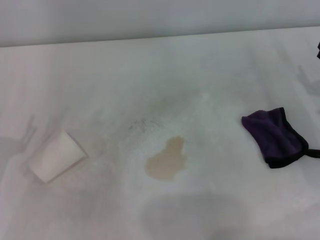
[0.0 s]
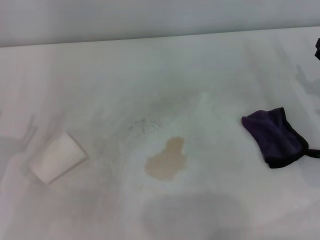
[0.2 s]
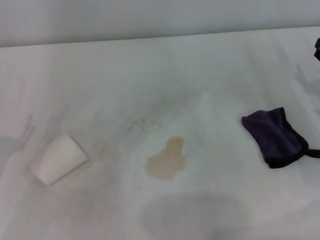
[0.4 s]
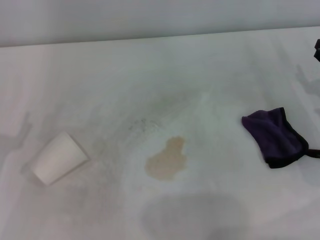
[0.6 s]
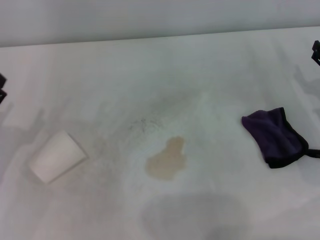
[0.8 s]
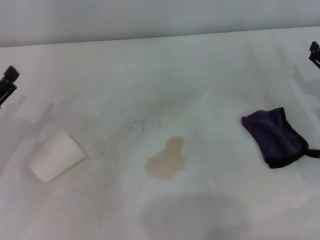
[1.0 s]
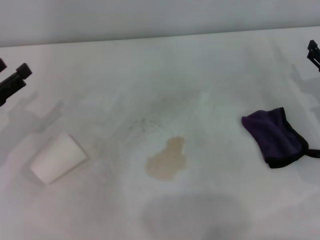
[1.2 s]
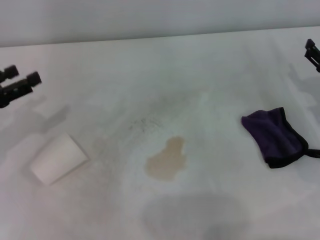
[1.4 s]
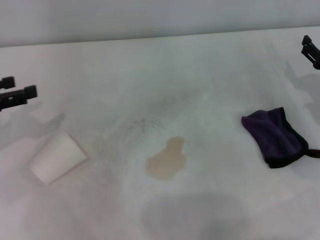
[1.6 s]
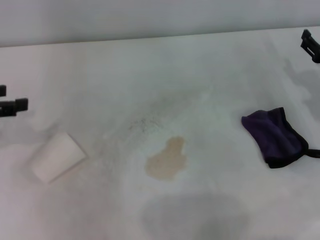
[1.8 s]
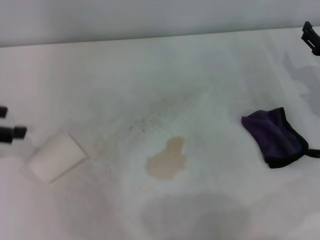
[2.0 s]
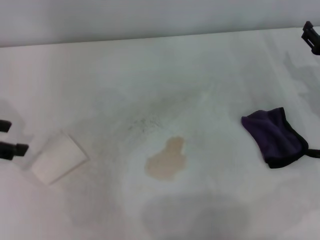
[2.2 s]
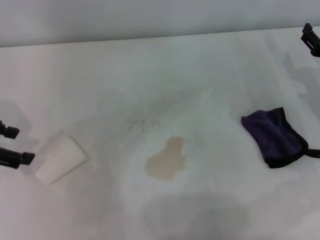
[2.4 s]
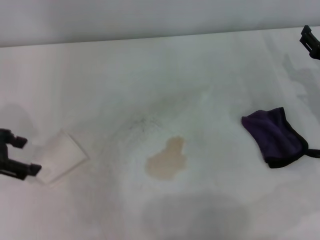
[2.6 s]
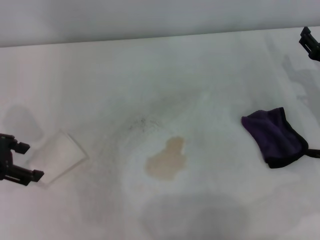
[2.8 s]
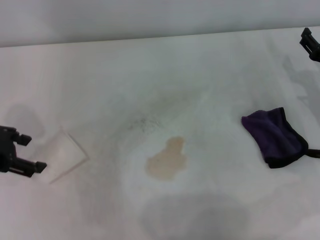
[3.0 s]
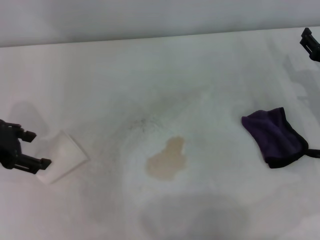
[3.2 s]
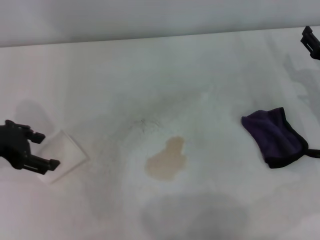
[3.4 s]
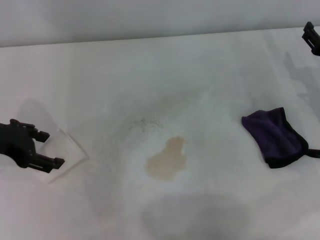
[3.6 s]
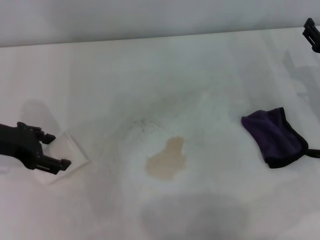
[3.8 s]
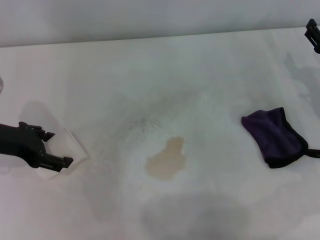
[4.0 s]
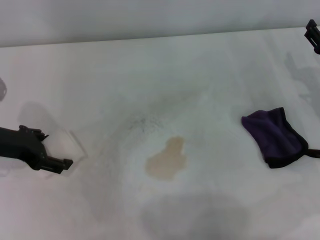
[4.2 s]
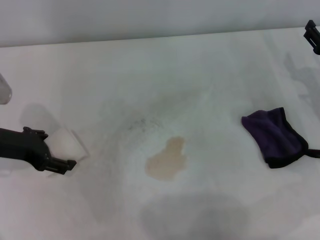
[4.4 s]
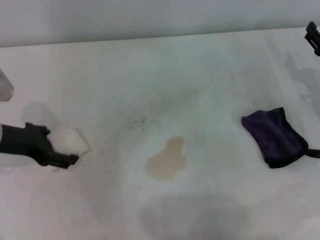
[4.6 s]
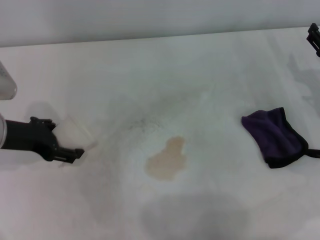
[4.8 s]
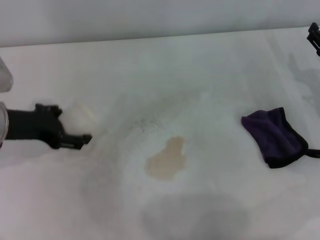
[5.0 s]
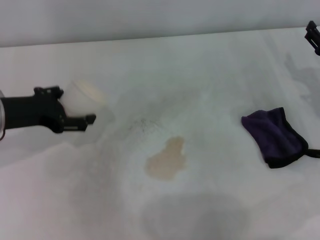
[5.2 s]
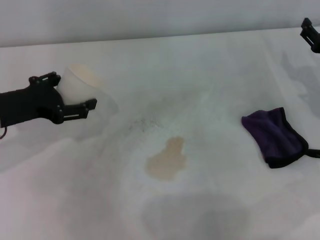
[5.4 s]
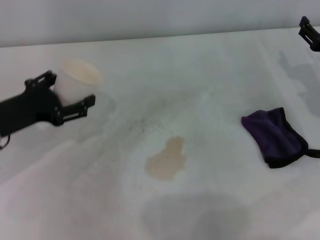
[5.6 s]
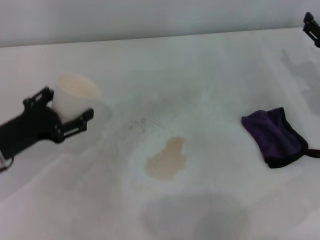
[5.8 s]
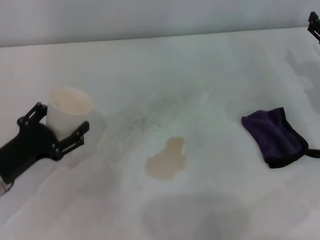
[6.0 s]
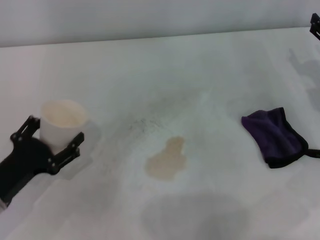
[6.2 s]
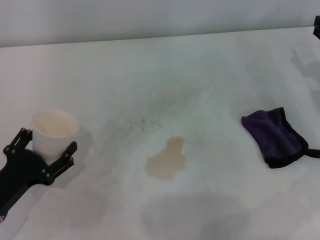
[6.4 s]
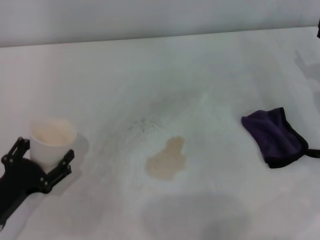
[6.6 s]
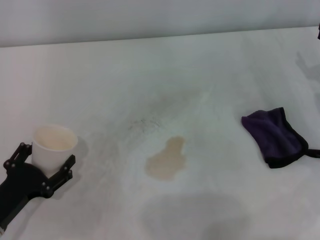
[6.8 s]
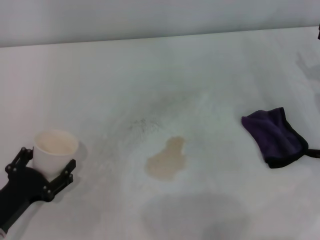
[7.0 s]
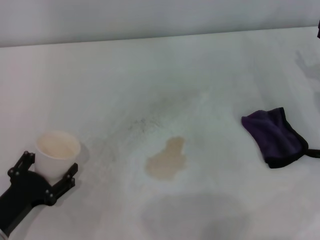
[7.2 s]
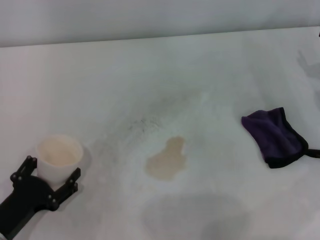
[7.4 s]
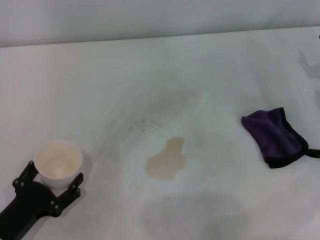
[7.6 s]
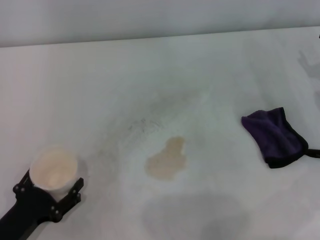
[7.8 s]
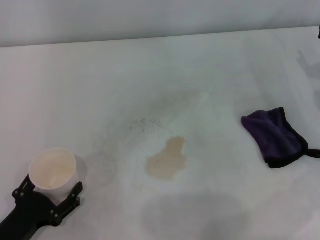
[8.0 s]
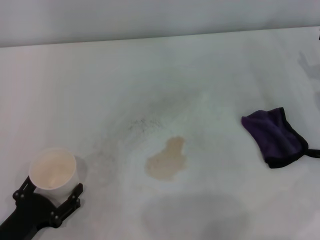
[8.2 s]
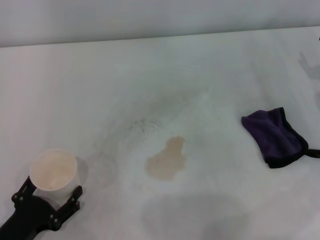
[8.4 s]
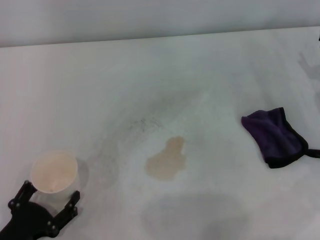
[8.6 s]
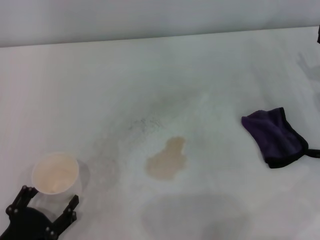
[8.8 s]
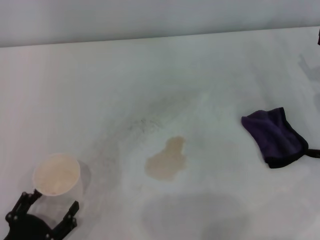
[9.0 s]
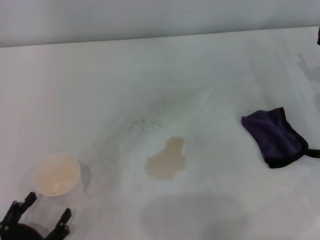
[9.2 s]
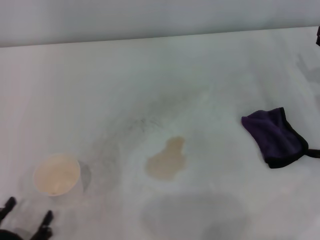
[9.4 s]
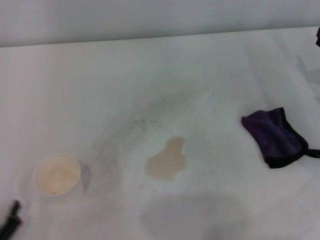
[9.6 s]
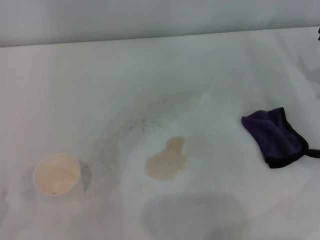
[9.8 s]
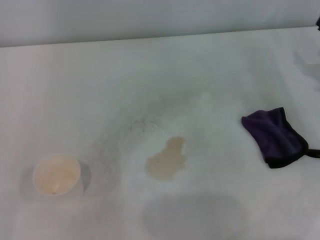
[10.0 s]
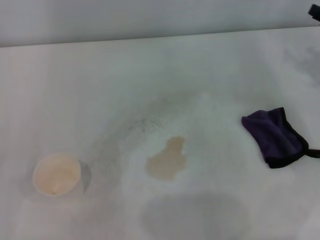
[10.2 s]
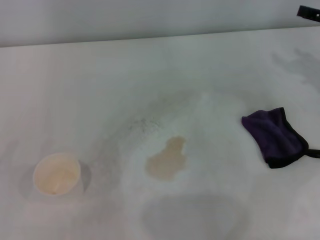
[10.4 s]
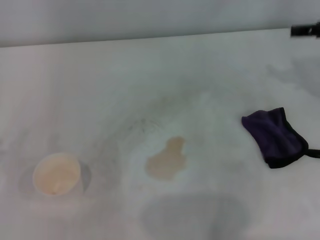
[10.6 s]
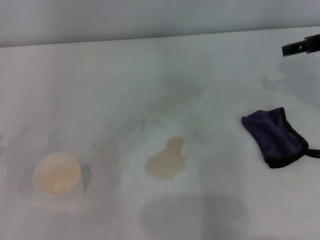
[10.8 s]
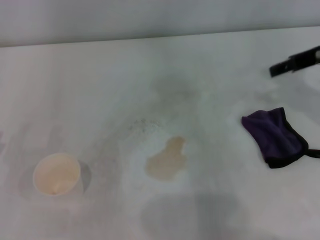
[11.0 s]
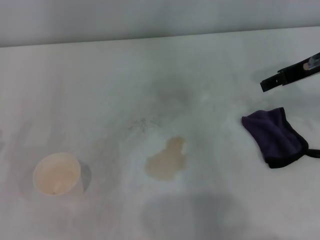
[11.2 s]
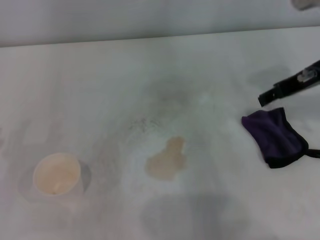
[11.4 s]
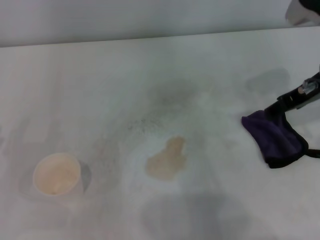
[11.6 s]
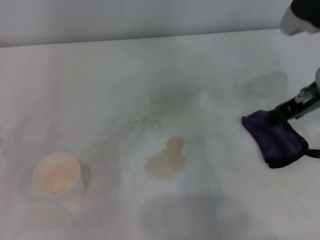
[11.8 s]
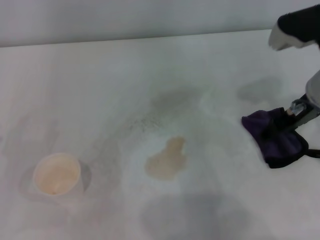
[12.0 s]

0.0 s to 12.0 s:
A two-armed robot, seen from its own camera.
Step, 0.0 to 4.2 s: Grasp the paper cup with the left gripper.
Step, 4.6 to 7.8 s: Stand the paper cup upright with the left gripper.
0.0 to 1.6 s: The left gripper shifts approximately 15 cm forward and upward.
3.0 to 4.4 s: The left gripper moves roughly 5 cm.
4.4 to 6.0 s: The left gripper shifts about 10 cm backward and downward.
6.0 to 7.6 s: The left gripper is displaced backward by some 10 cm.
7.6 to 9.0 s: The left gripper shifts approximately 5 cm backward.
9.0 to 10.4 s: The left gripper heads to the left, covering approximately 10 cm.
10.4 to 12.0 s: The right gripper travels to the left by some 15 cm.

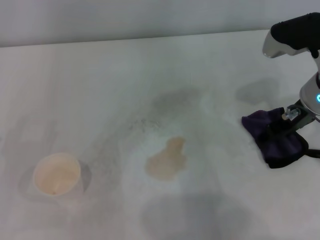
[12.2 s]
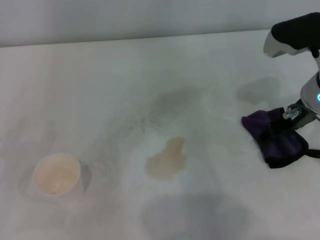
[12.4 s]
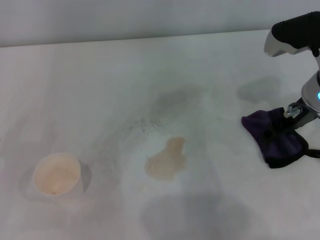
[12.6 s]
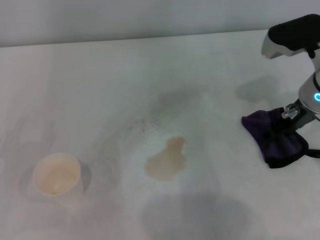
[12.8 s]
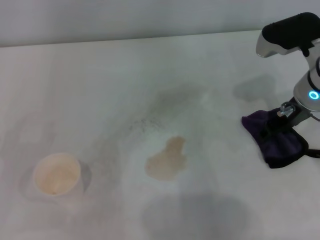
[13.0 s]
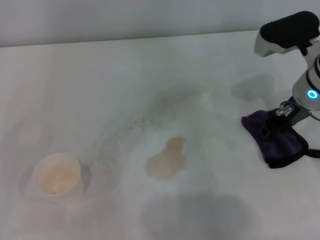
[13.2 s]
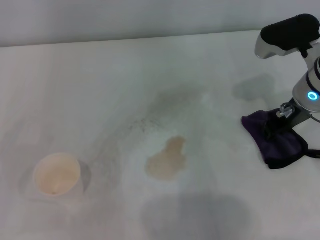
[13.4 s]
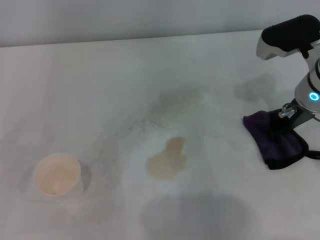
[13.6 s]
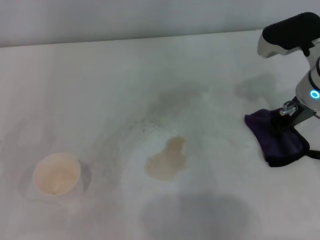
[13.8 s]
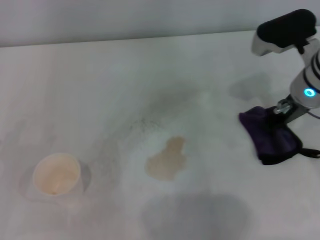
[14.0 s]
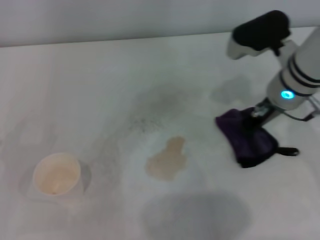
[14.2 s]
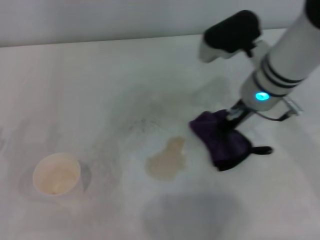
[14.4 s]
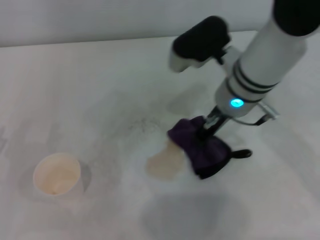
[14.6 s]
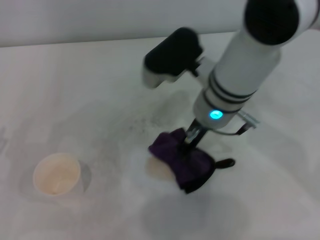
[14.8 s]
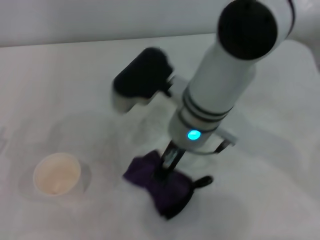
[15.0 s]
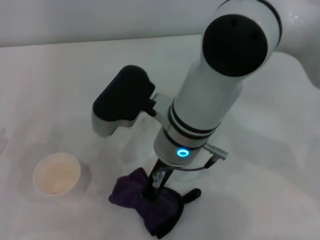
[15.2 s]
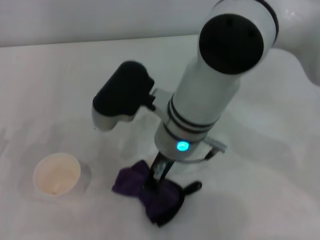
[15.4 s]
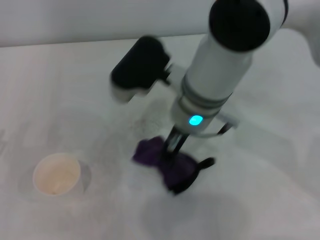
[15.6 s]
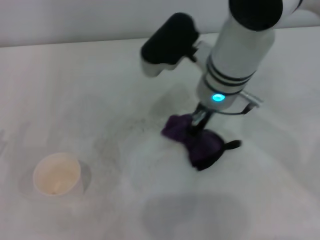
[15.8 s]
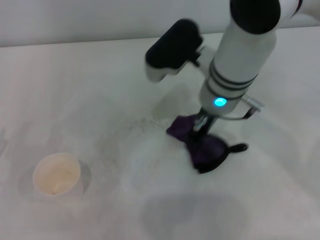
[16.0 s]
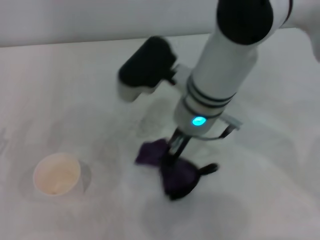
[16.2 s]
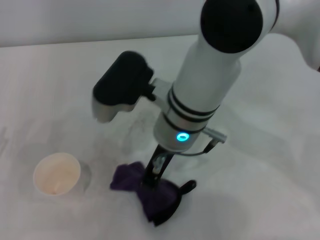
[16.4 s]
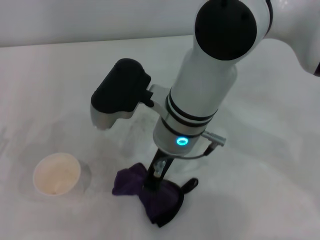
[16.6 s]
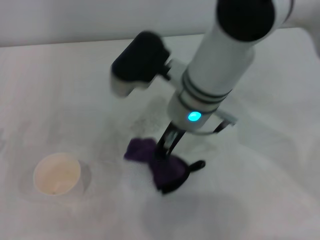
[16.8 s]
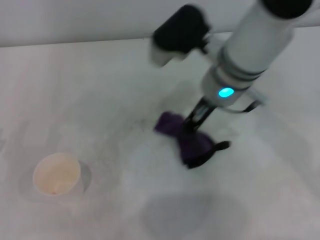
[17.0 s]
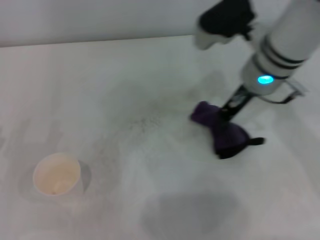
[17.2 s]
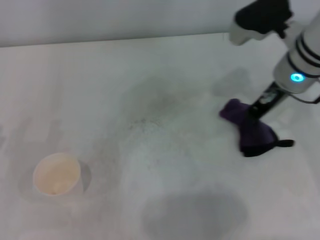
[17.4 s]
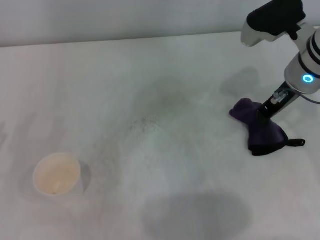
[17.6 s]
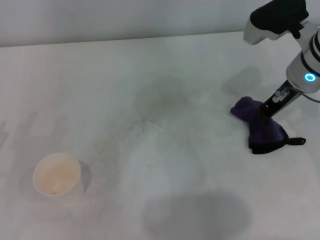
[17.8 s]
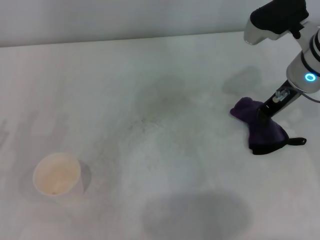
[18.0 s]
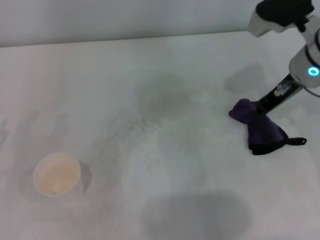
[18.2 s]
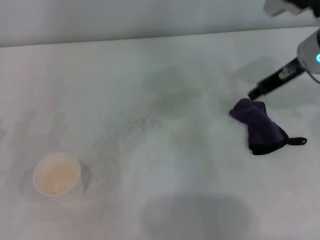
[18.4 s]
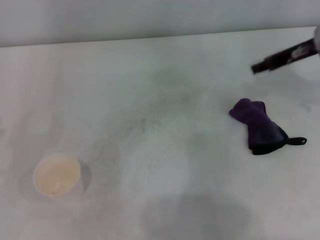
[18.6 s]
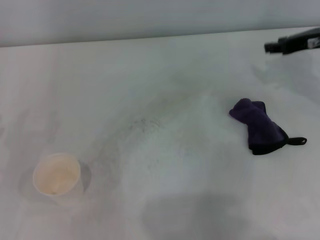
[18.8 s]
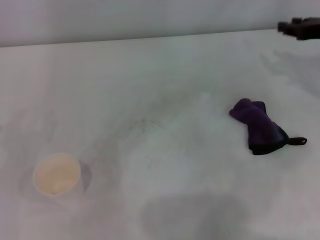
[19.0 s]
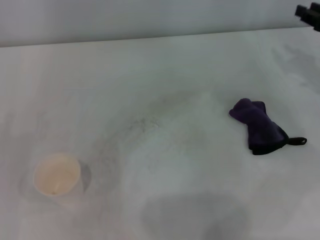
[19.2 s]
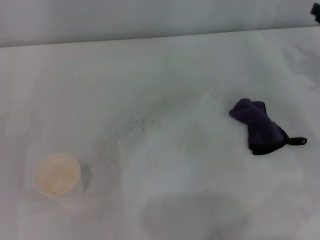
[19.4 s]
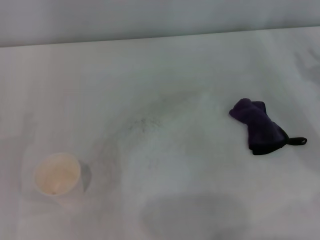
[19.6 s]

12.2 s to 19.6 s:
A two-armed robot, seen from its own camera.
Step, 14.0 to 17.2 s: Wipe the stains off the table with the right gripper.
Step, 17.4 to 18.0 s: Place the rag on the table with the right gripper.
12.2 to 13.6 s: The right gripper closes up.
13.6 to 15.2 s: The right gripper heads to the left, covering about 20 cm.
16.6 to 18.2 s: The right gripper shifts some 20 cm to the right.
18.2 to 19.6 s: The right gripper is displaced to the right, downward and backward by approximately 20 cm, and opens.

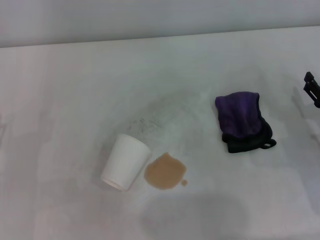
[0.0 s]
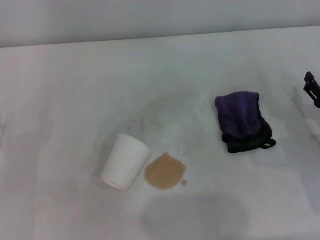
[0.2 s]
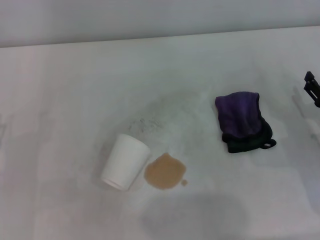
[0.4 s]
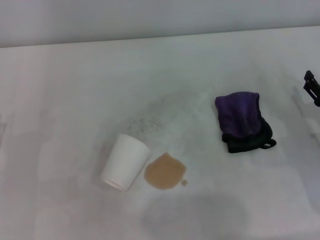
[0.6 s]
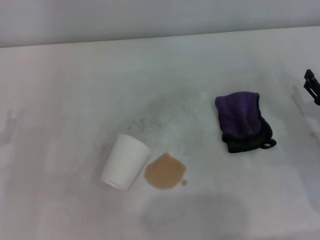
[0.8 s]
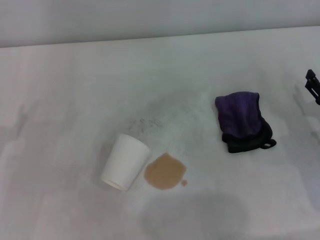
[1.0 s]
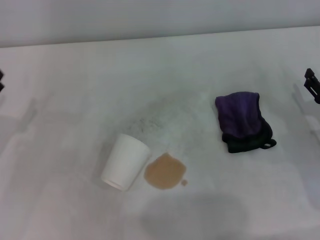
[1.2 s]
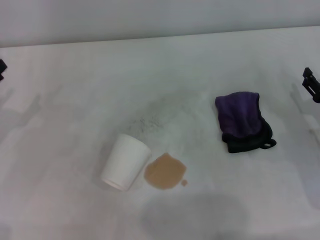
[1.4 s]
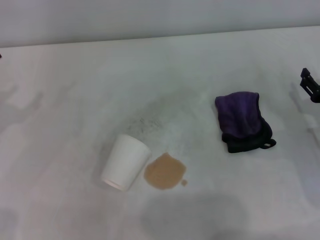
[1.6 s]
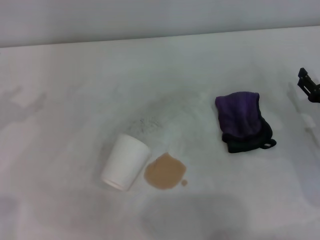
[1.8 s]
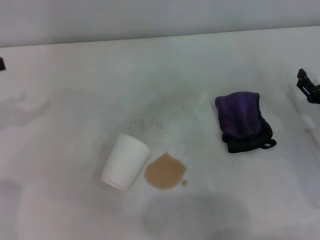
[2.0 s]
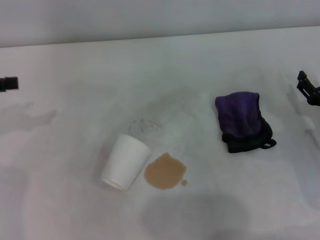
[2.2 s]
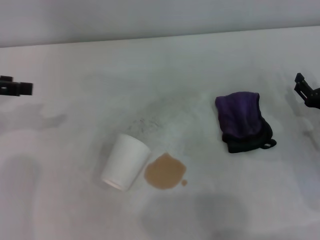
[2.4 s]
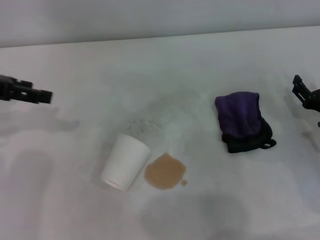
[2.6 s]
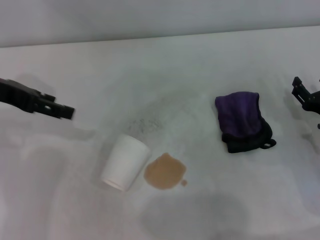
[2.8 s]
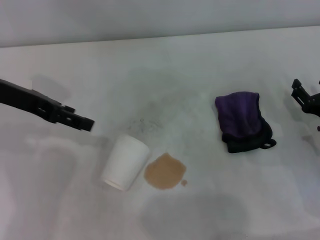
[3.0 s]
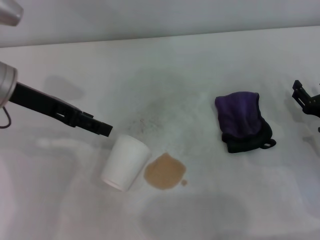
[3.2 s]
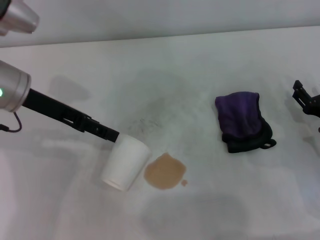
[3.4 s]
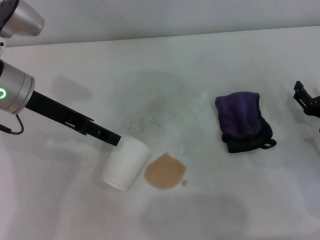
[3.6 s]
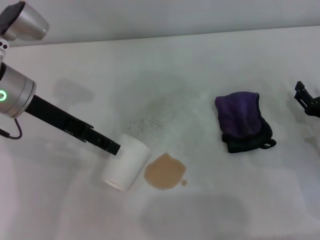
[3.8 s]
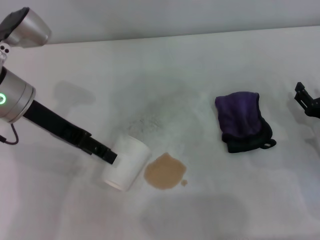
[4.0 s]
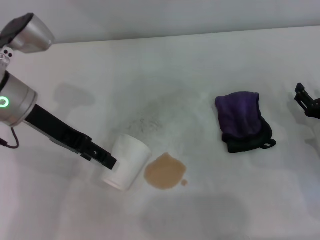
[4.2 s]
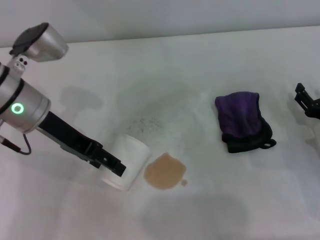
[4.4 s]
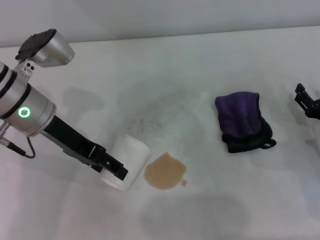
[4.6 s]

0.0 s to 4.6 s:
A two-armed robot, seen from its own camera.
1.6 to 3.0 s: The left gripper goes about 15 cm to the right, upward and forward.
3.0 to 4.6 s: The left gripper shifts roughly 5 cm to the right.
